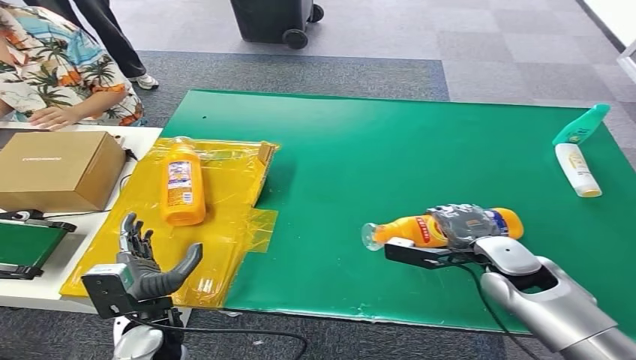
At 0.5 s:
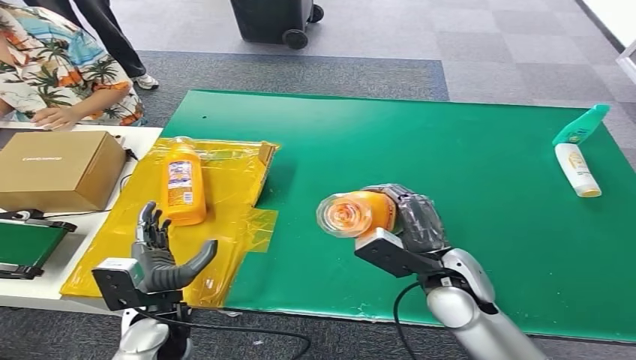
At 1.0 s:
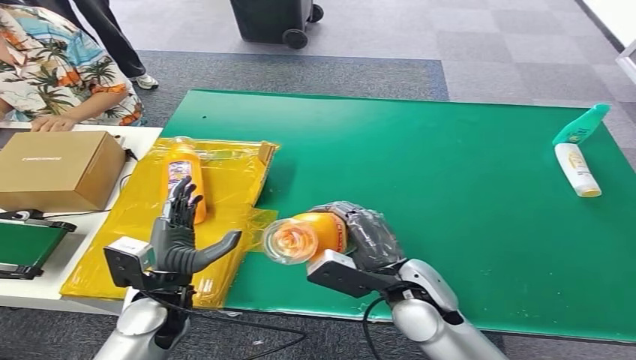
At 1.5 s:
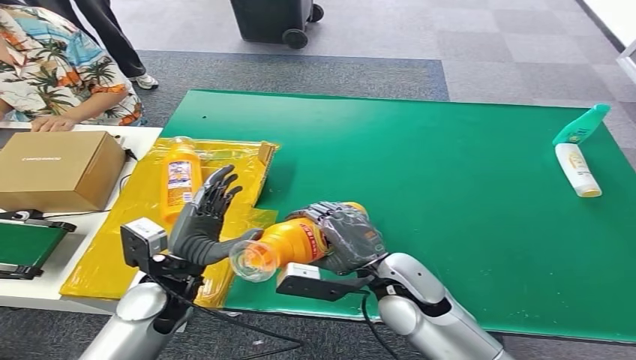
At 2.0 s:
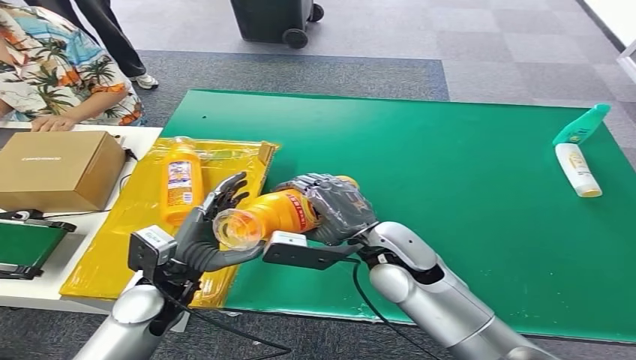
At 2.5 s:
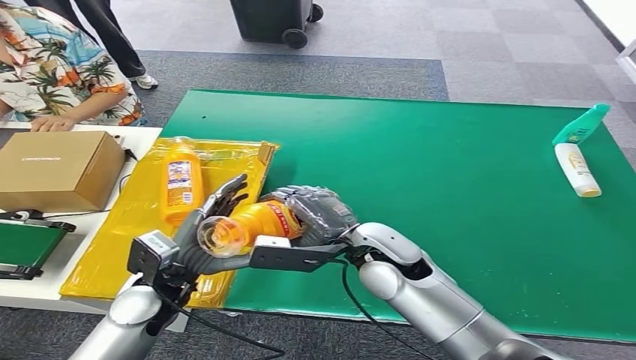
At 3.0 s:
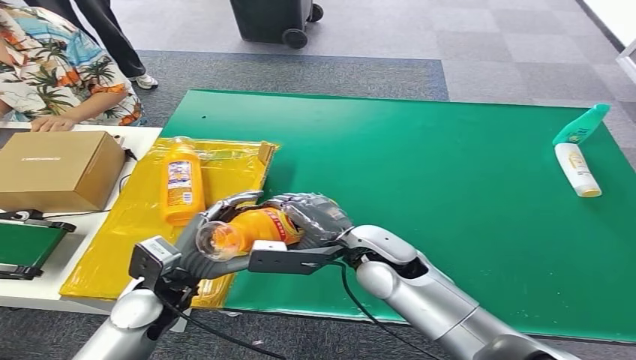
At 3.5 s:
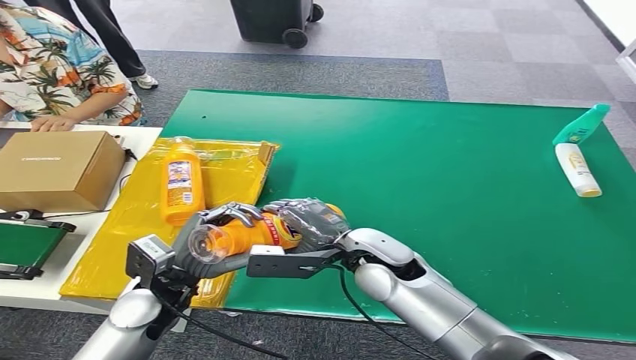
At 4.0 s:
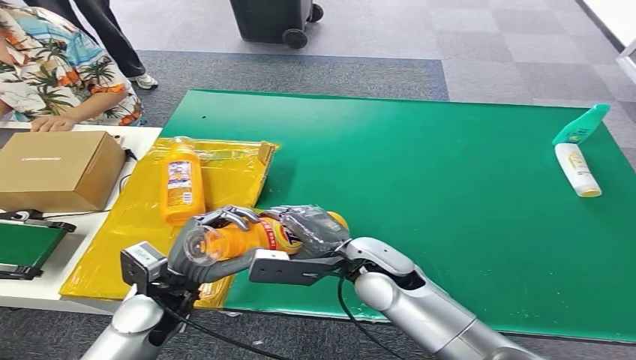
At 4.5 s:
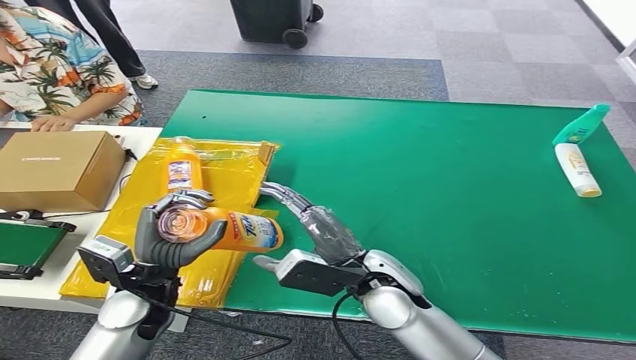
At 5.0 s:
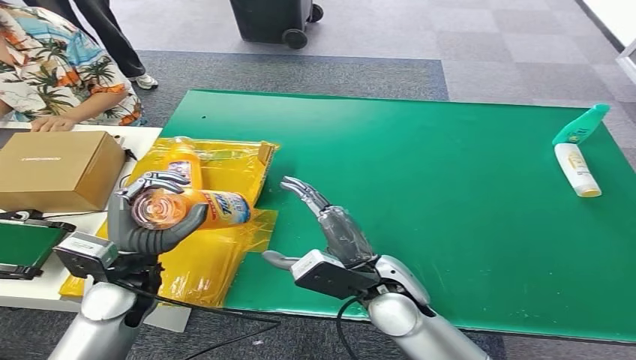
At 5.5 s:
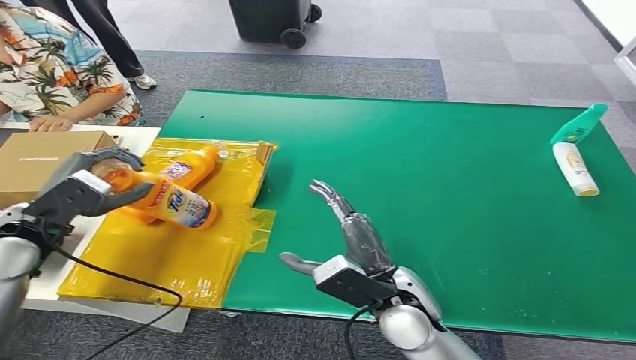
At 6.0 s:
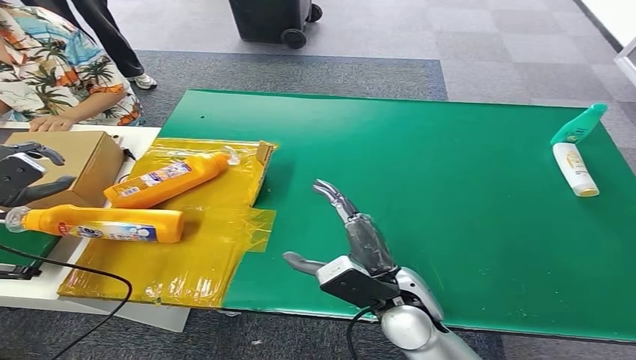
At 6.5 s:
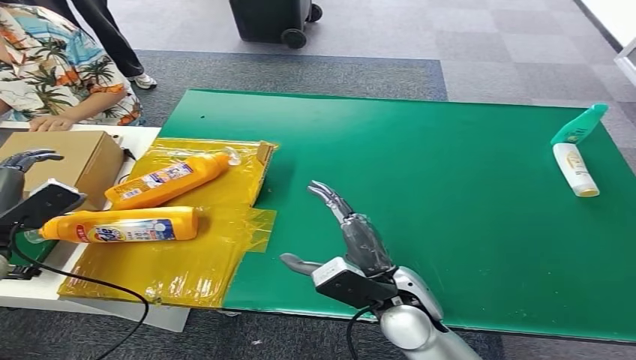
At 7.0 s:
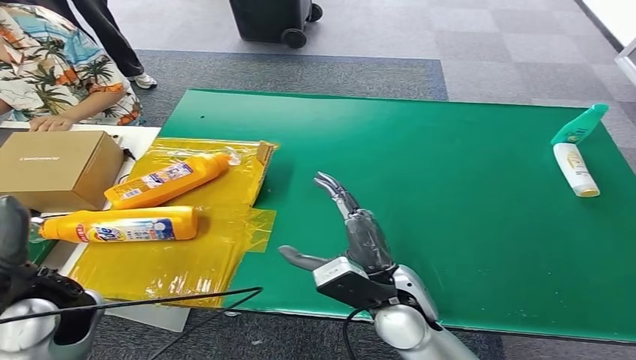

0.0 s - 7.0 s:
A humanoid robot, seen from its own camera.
Step, 0.5 s - 7.0 s: Turn the bottle to the front side.
2.0 s - 3.5 s: The hands stay close to where they were, moving slightly.
3.5 s - 5.0 s: The right hand travels backward by approximately 5 cm.
